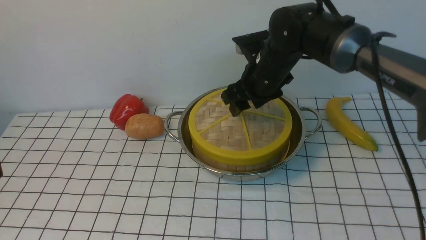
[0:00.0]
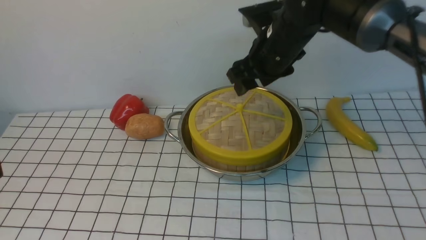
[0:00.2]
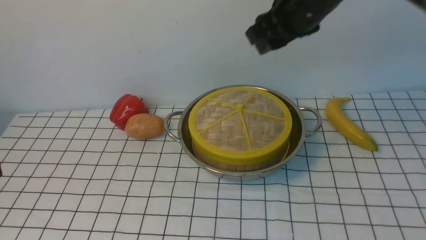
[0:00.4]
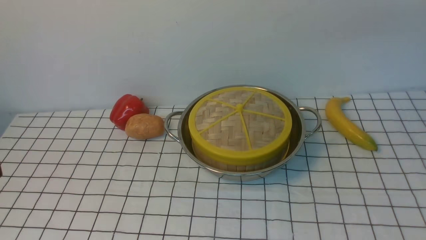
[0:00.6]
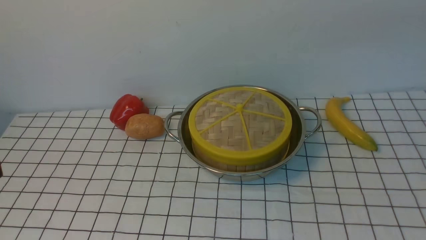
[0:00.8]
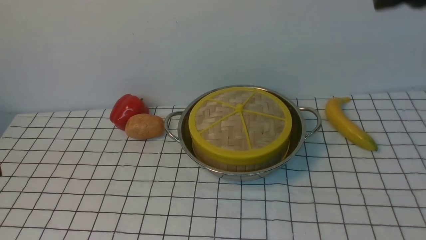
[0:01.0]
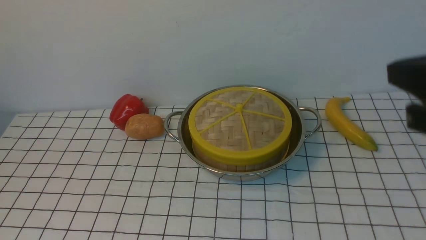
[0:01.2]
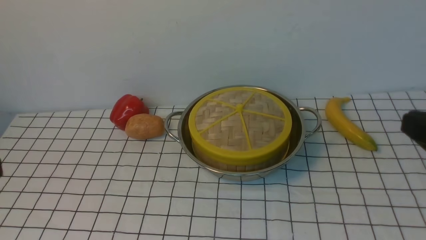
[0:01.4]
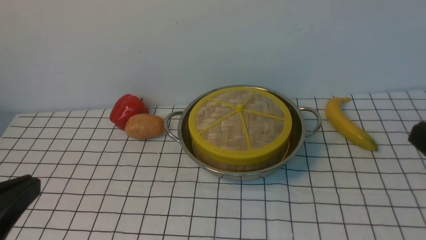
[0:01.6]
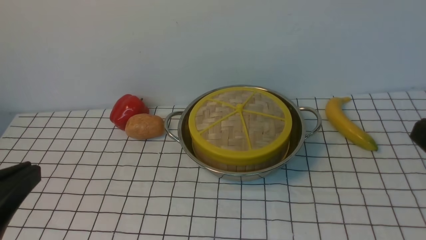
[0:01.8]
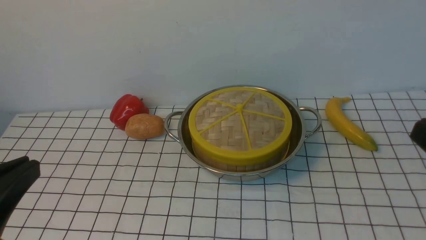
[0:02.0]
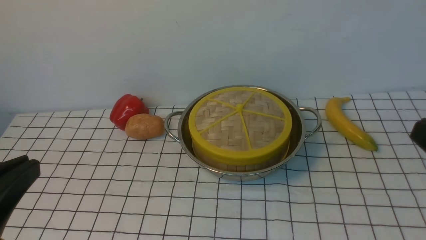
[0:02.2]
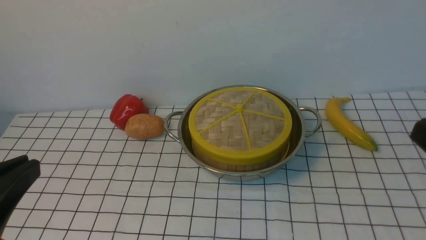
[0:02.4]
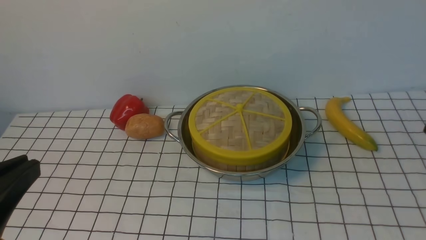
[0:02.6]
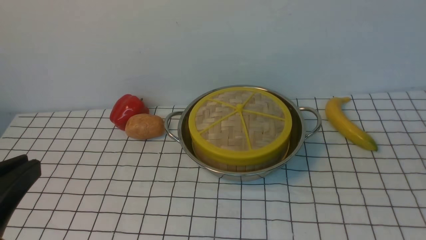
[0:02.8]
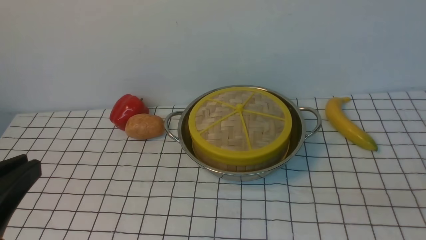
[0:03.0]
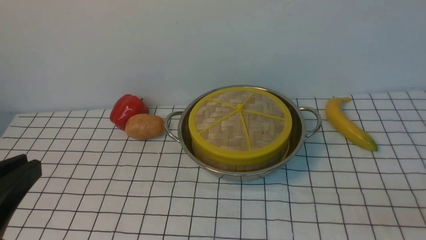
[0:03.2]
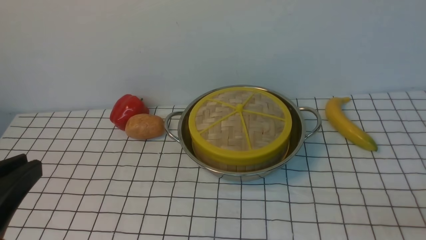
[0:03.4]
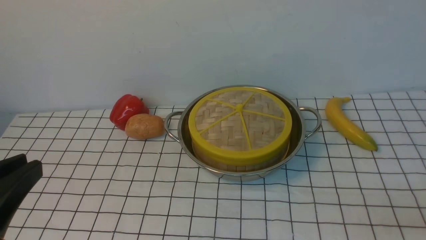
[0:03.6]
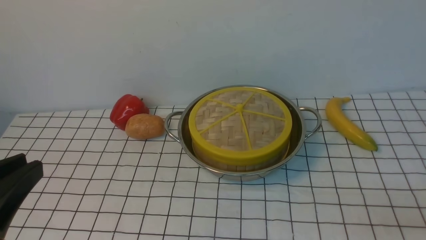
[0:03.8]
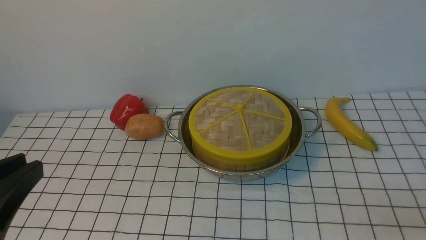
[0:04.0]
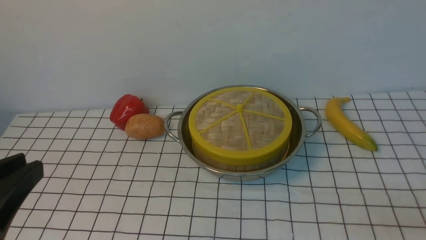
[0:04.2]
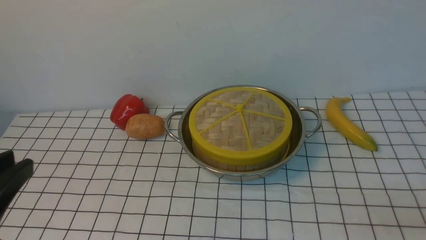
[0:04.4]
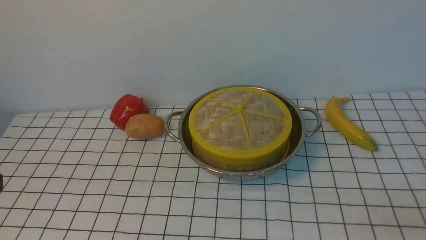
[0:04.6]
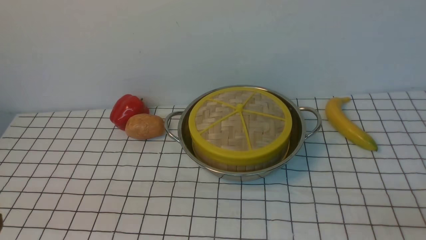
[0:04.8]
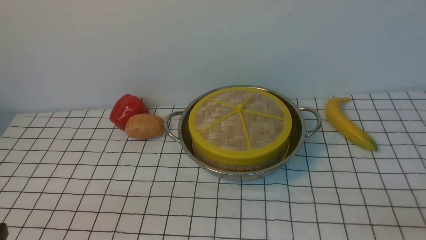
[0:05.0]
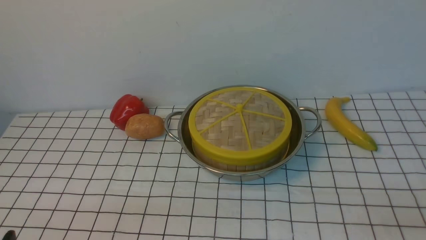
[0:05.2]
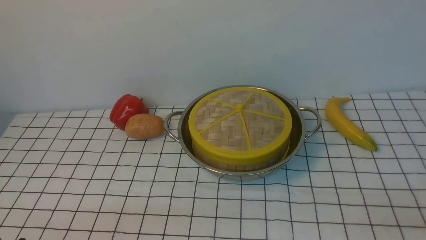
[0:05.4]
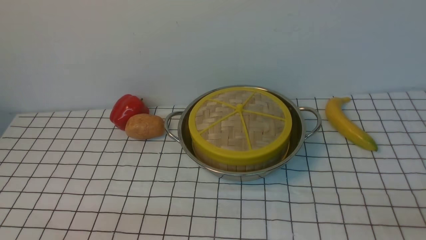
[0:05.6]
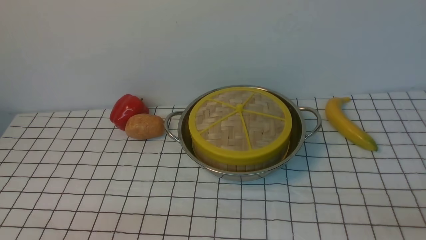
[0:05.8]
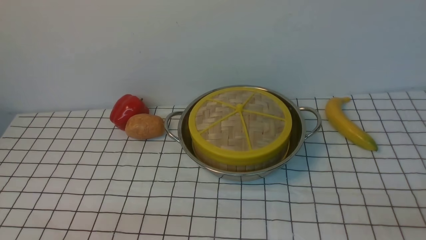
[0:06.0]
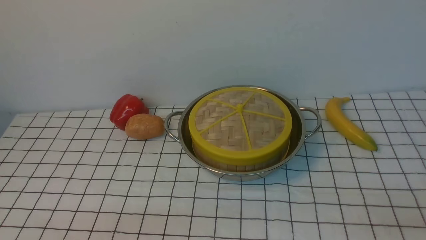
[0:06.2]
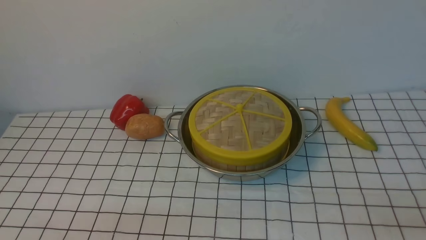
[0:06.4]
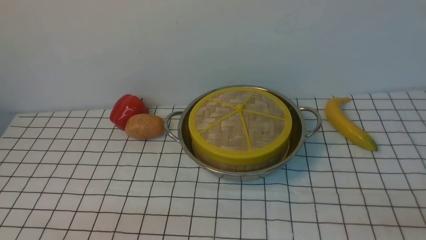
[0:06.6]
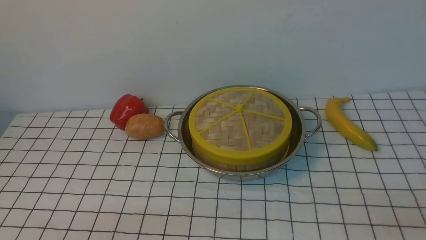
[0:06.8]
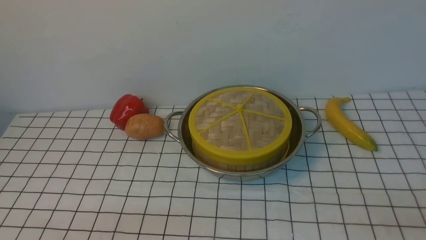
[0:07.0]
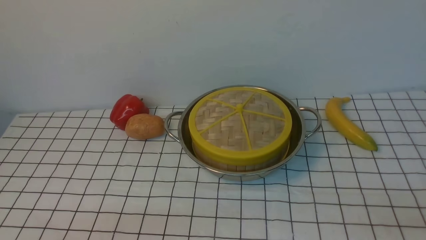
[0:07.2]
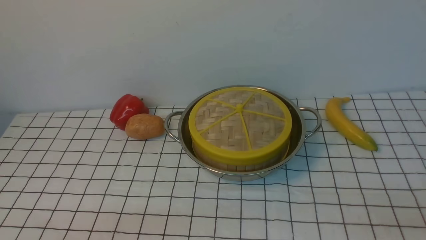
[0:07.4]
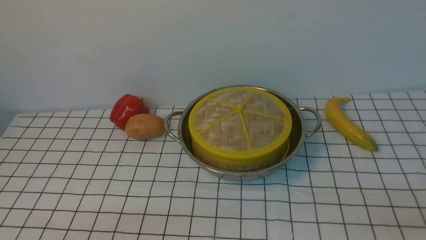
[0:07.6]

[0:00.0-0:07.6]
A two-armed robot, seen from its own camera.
Task of the whole recording: place the steamer in the pot on the white tablecloth, and put the lid on the steamer.
0:00.0 to 0:01.6: The right gripper travels backward and to the right by about 35 cm, and closes.
0:03.0 to 0:04.6: The grippers stay close to where they were, moving slightly.
0:06.0 to 0:07.6: Neither gripper changes place.

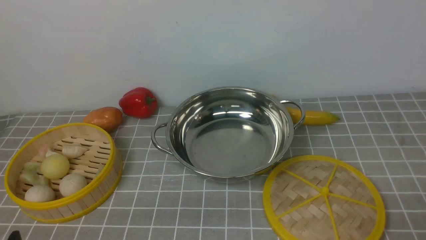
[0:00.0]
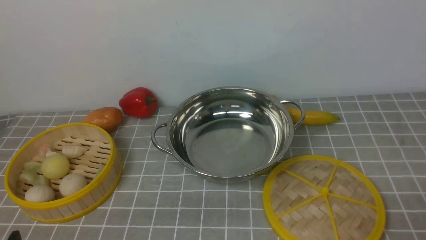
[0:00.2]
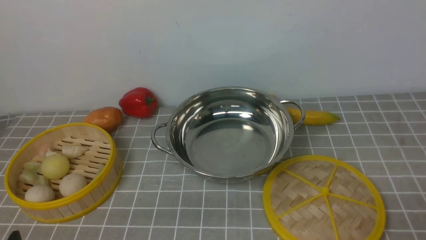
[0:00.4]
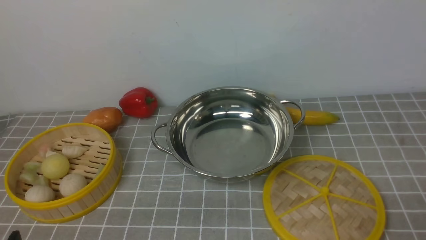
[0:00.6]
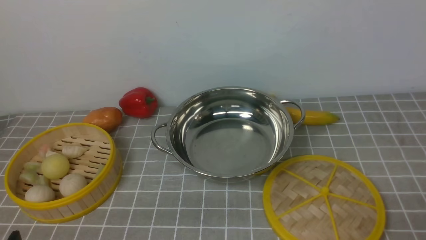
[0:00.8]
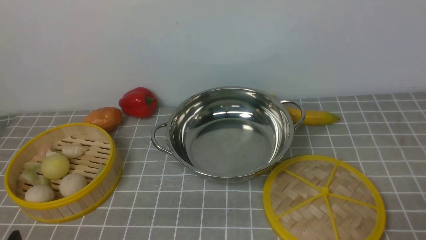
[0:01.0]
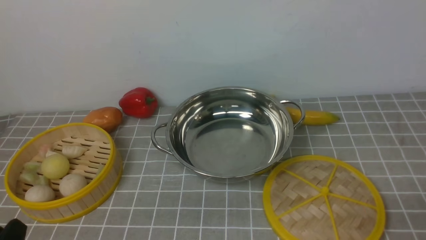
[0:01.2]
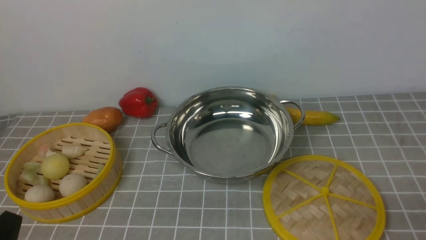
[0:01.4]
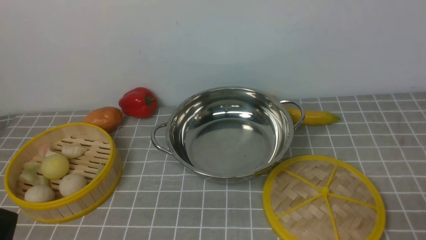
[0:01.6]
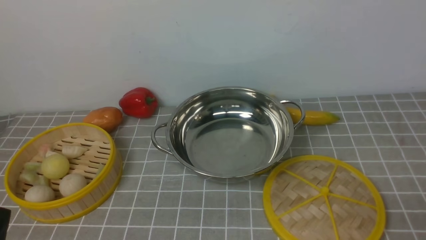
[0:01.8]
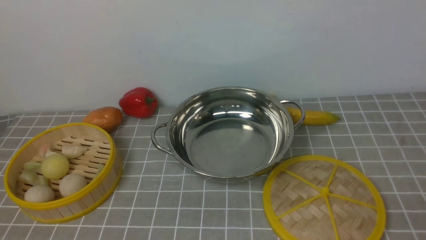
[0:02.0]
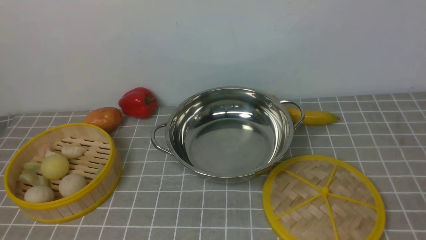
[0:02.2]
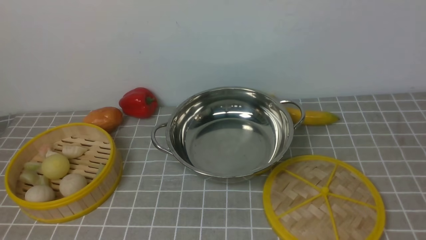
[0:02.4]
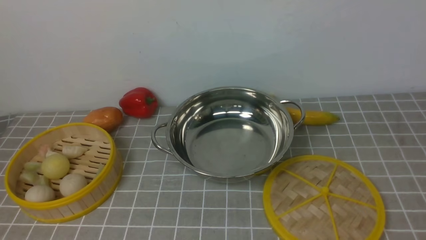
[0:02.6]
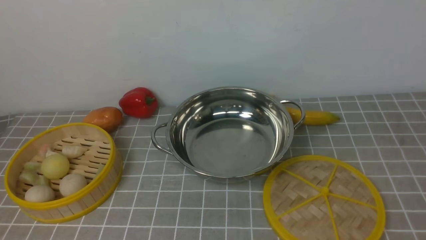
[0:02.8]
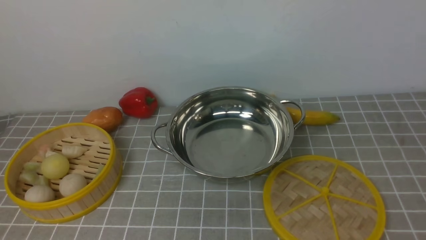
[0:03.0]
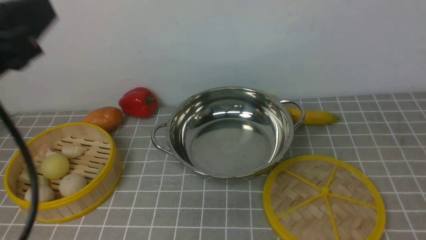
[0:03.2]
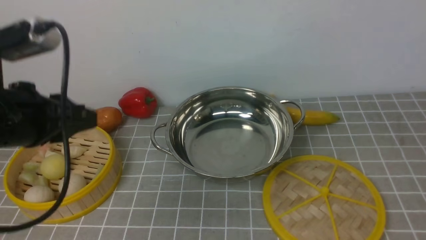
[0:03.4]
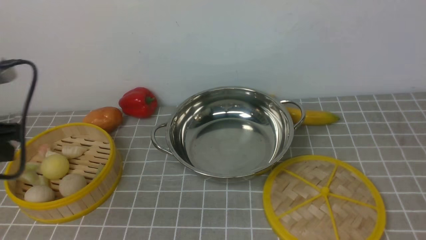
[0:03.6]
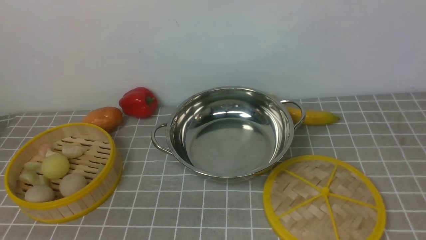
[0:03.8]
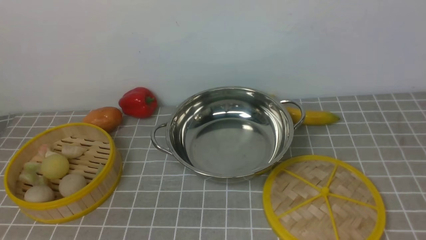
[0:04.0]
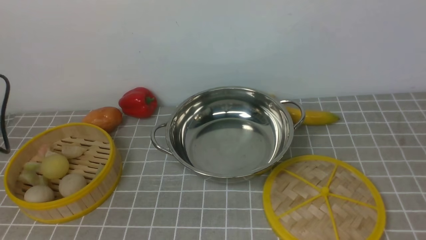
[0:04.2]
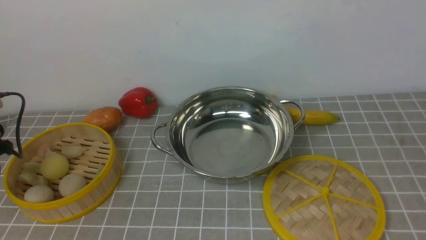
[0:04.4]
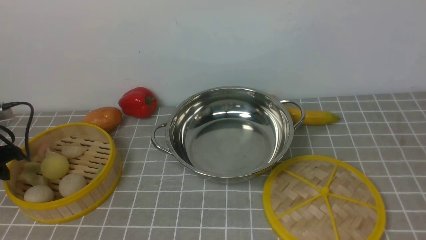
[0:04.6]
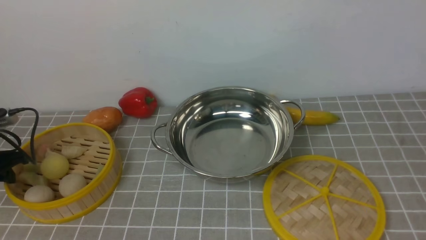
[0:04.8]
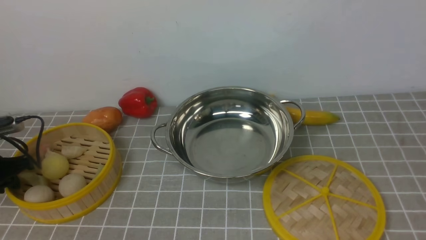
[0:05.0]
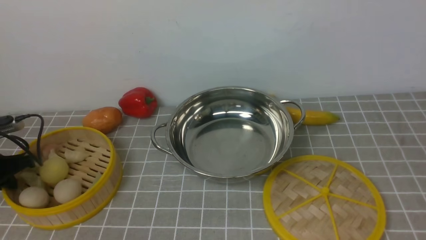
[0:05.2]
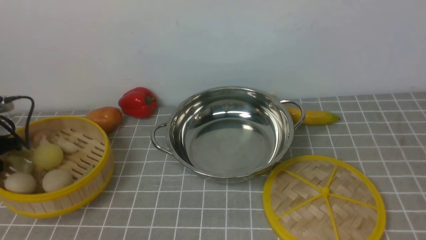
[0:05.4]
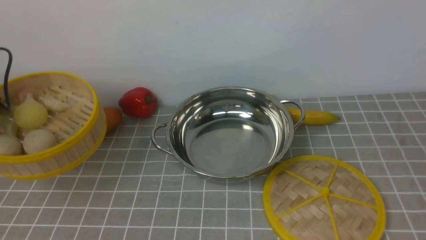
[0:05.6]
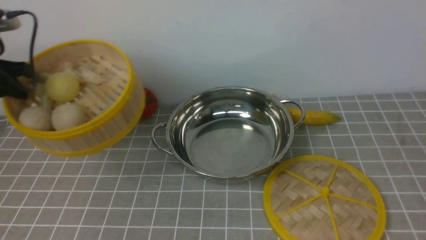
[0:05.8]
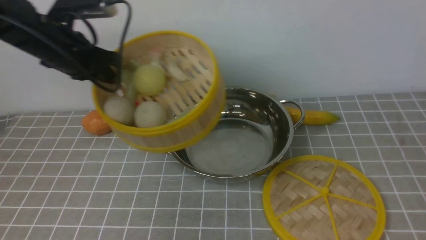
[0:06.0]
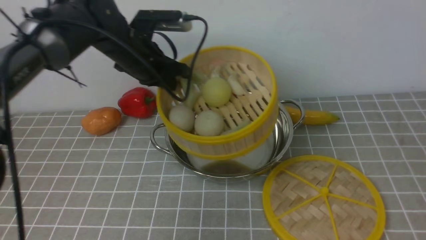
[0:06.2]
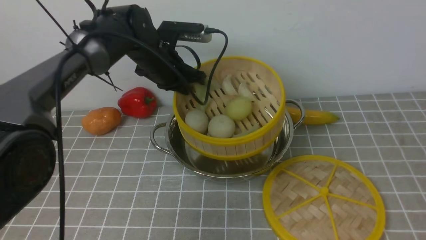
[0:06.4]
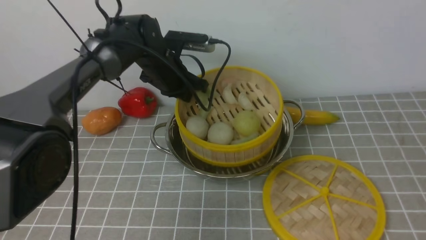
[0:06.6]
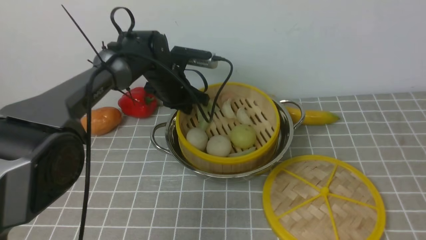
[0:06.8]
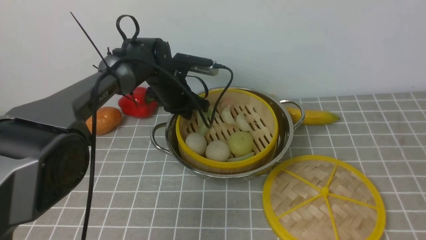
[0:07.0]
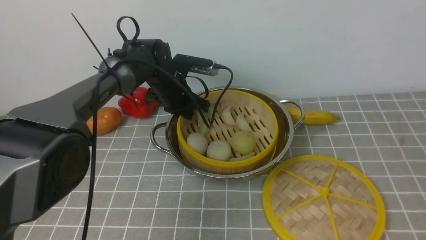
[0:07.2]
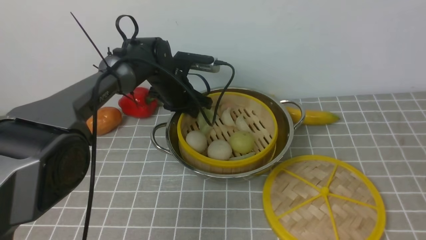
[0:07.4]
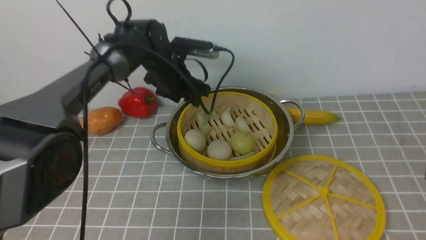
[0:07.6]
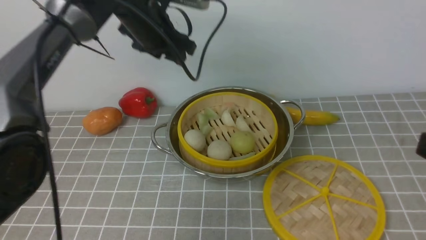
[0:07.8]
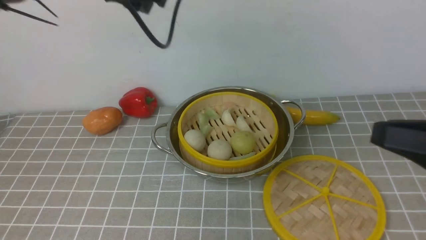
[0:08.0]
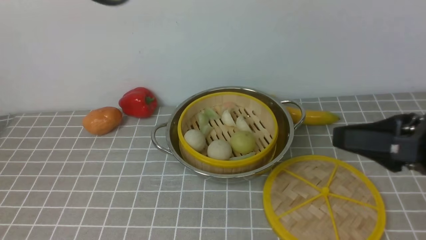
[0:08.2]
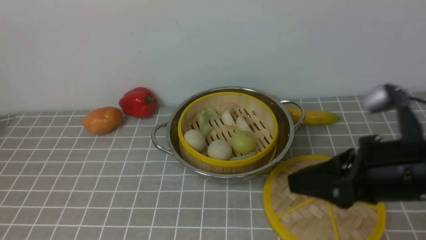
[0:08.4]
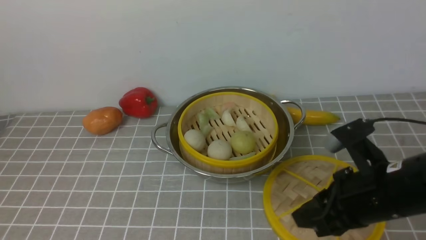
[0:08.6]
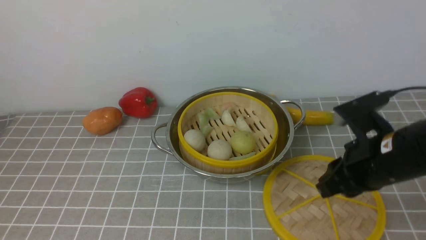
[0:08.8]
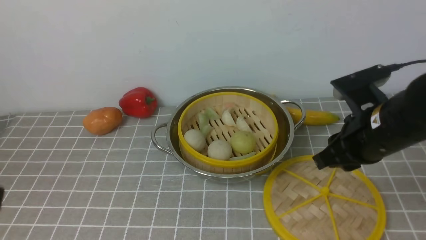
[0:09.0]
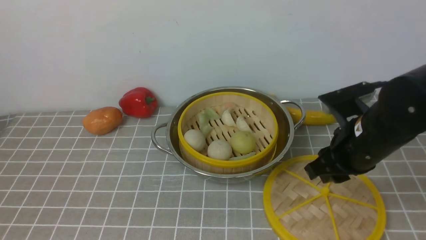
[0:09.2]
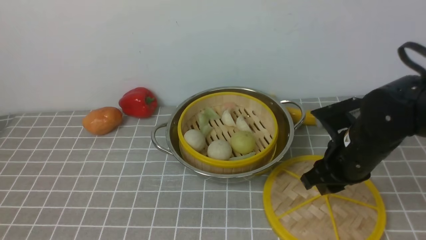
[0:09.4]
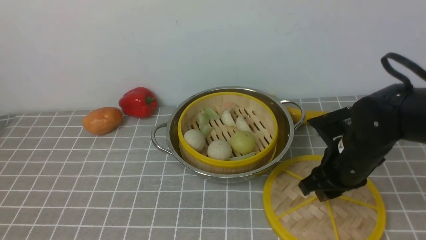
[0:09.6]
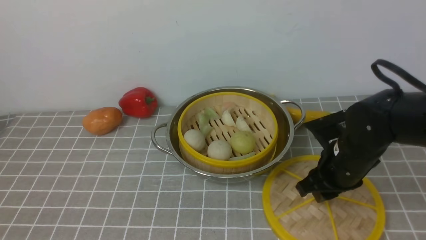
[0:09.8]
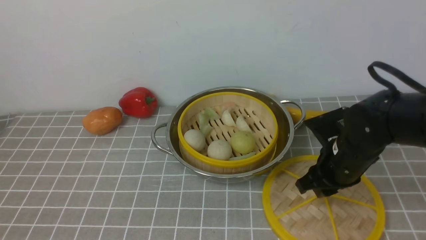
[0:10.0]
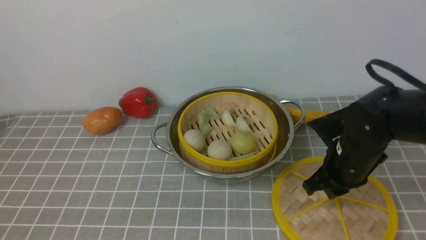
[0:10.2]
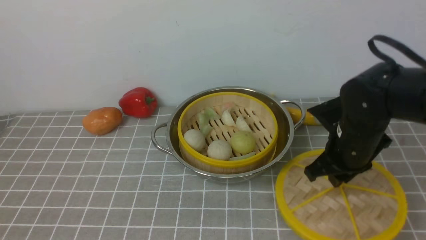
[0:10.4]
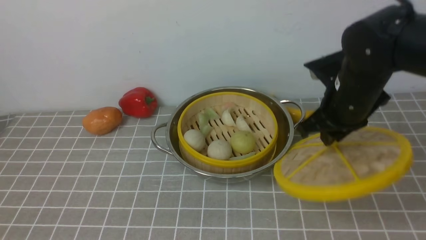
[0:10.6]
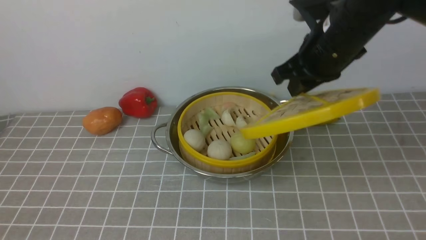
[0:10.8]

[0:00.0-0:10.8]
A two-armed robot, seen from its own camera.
Task of the whole recording: place the steamer in the pot on the grey tablecloth, and put the lid on the steamer.
Step, 0:00.0 to 0:05.2: use the left arm to lift the steamer closest to it.
Step, 0:05.6 to 0:07.4: use the left arm to put the steamer into the iron steamer pot in the middle.
Step, 0:07.8 to 0:10.2: use the right arm to lift the lid of the steamer.
0:03.0 to 0:04.6: The left gripper heads downward, forward and to the left, covering approximately 35 cm, and opens its fingers.
0:04.6 to 0:06.2: The left gripper heads to the right and forward, covering about 30 cm, and closes its fingers.
0:06.2 to 0:07.8: The left gripper travels upward by approximately 5 cm, and opens.
0:07.8 to 0:09.2: The left gripper shifts roughly 40 cm backward, and closes up. Meanwhile the right gripper is displaced forward, downward and to the left by roughly 20 cm.
0:09.2 to 0:10.8: The right gripper shifts approximately 10 cm upward and forward.
